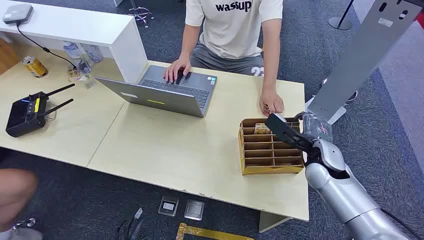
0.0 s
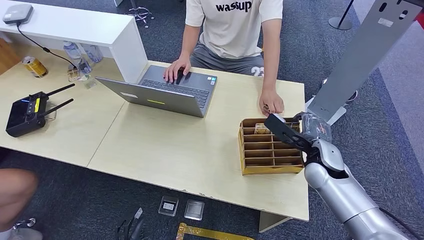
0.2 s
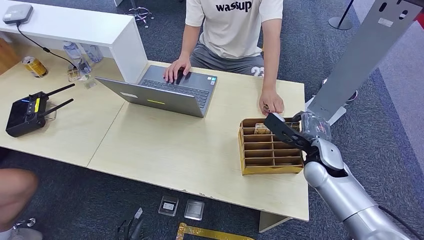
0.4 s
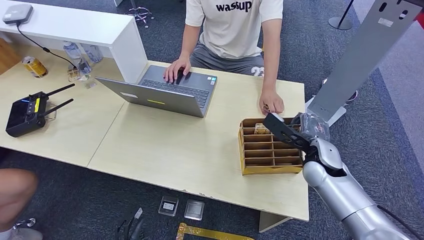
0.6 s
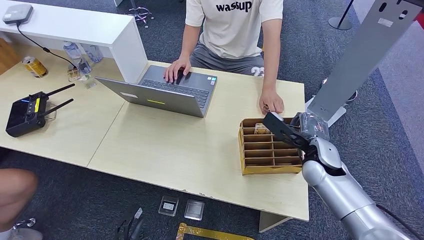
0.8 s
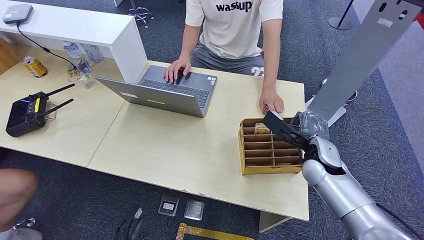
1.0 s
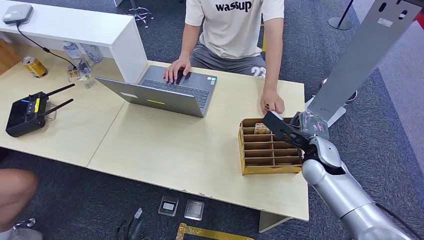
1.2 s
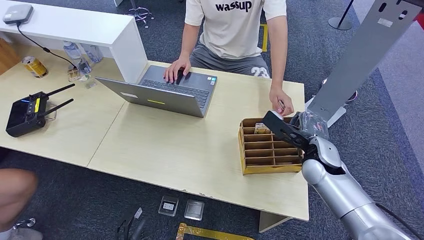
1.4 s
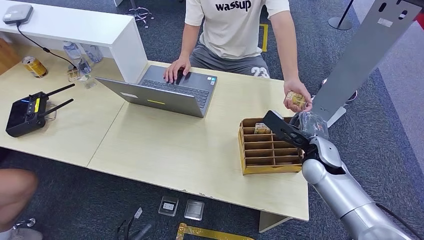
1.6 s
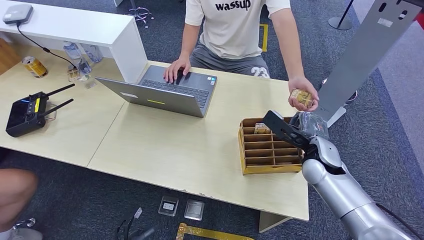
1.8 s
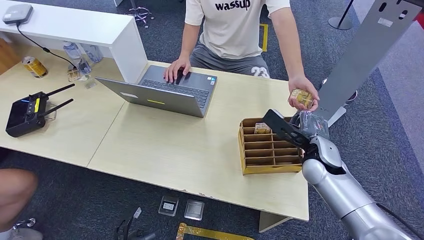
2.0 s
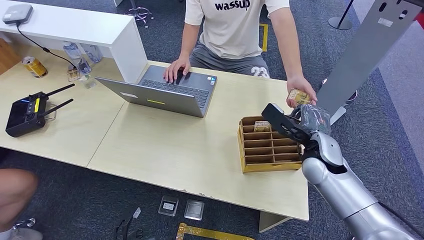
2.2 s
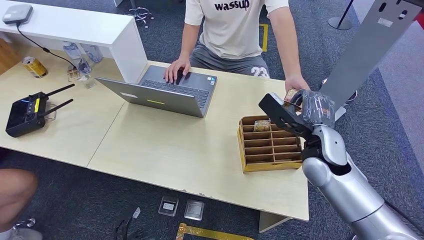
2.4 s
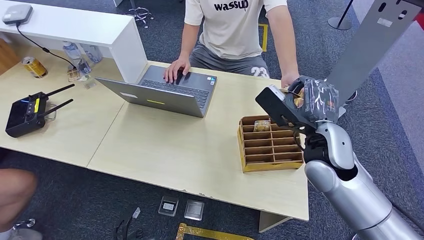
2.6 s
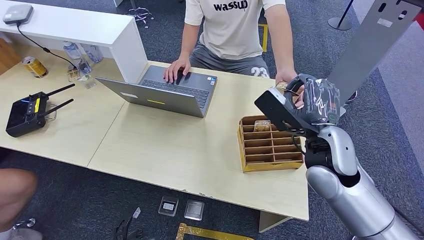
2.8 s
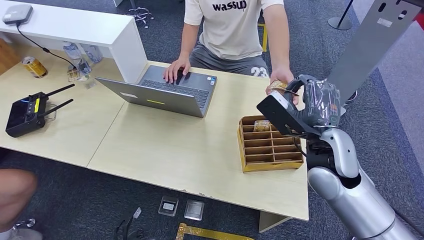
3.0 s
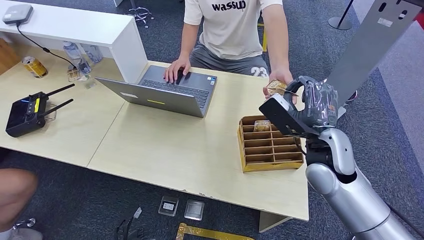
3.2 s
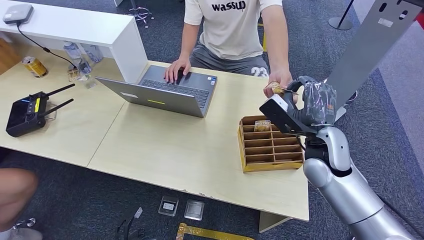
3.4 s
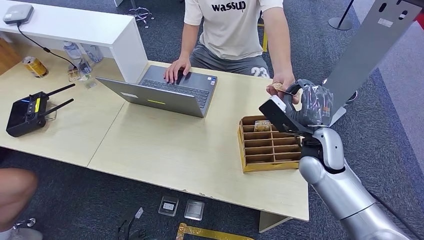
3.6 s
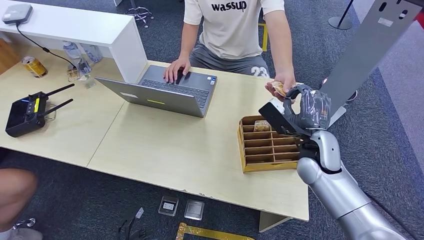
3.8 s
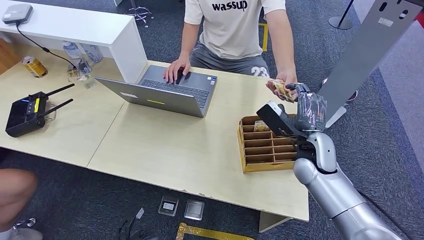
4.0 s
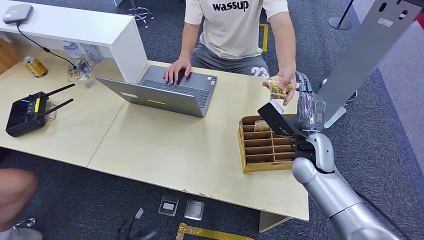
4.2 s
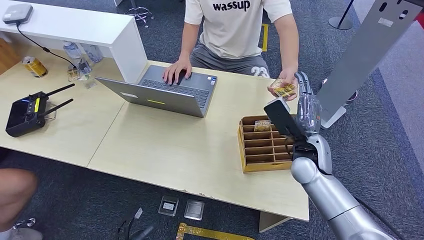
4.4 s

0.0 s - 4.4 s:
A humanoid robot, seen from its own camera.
Step, 0.0 s - 1.4 s: Pick up the key card from the card box.
Step, 1.8 s - 4.4 s: Hand the key card to the target.
1.4 s - 3.0 s: The right hand goes approximately 10 cm upward and to the left.
3.0 s - 4.4 s: The right hand is displaced downward by about 10 cm.

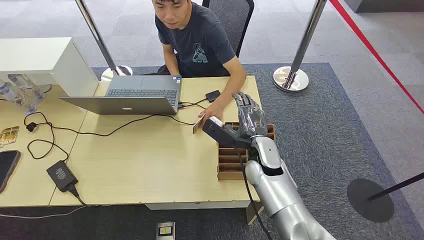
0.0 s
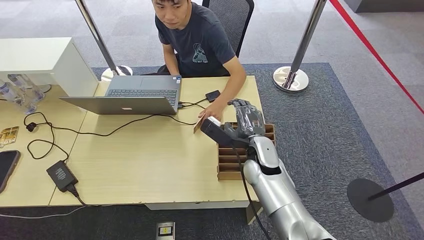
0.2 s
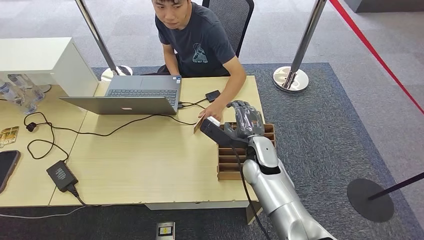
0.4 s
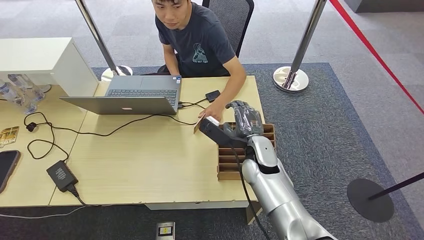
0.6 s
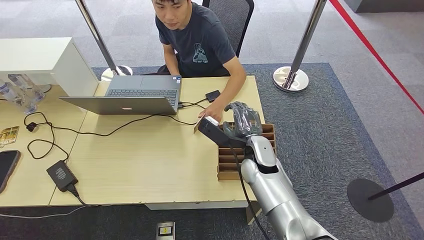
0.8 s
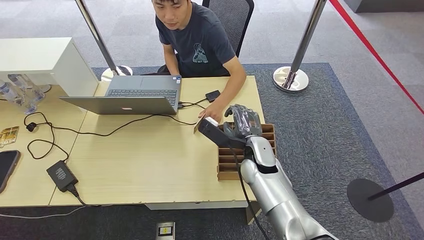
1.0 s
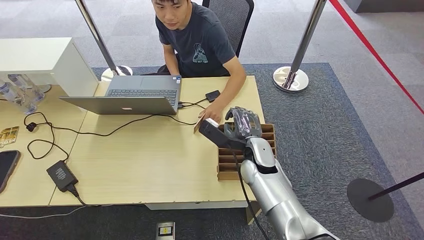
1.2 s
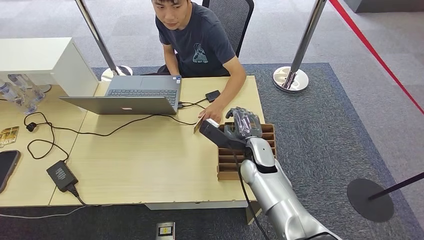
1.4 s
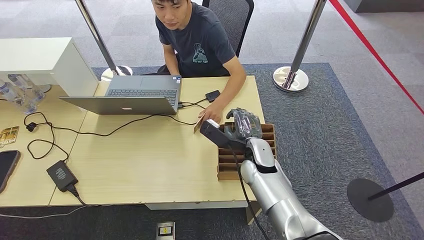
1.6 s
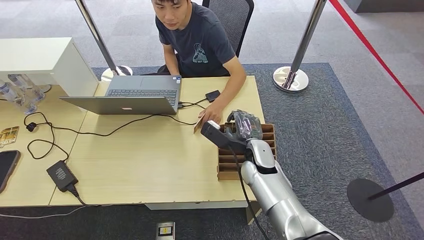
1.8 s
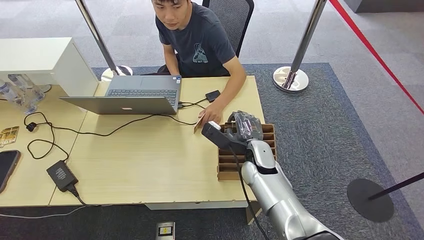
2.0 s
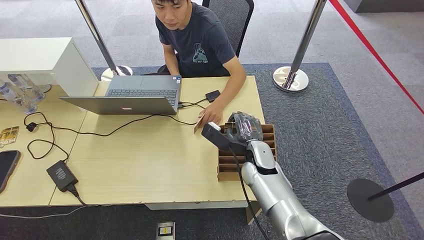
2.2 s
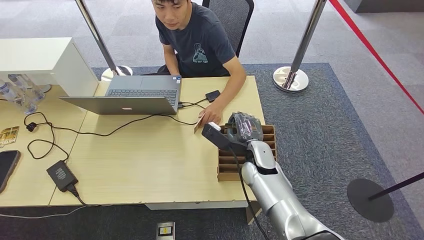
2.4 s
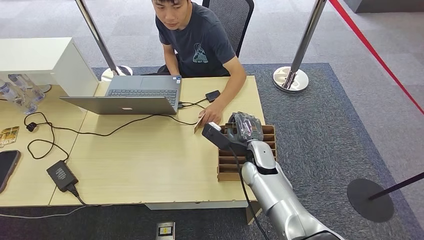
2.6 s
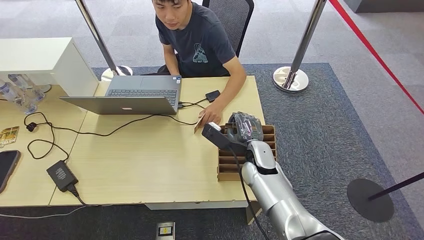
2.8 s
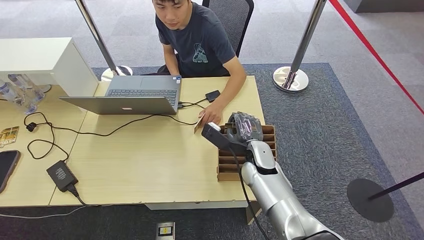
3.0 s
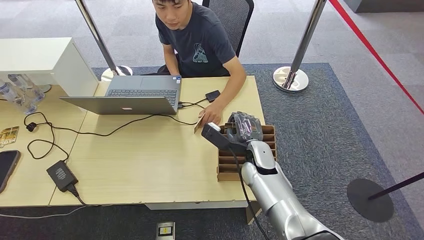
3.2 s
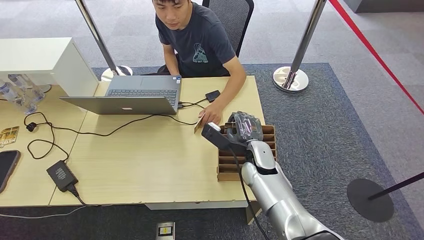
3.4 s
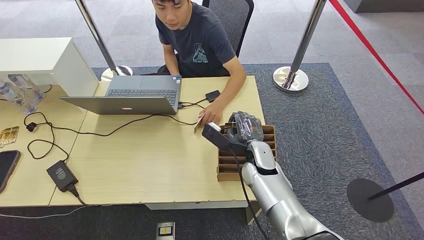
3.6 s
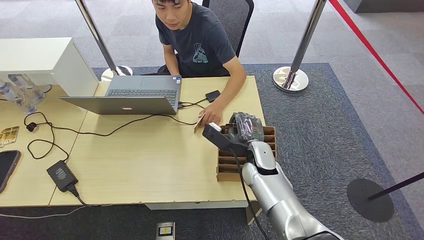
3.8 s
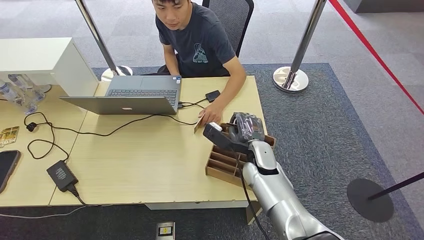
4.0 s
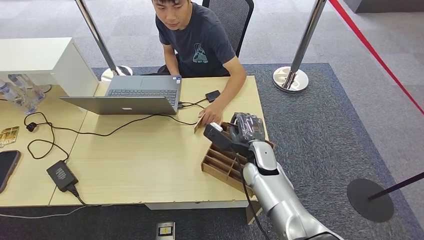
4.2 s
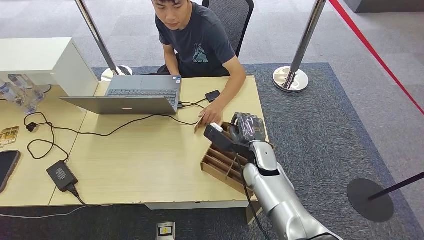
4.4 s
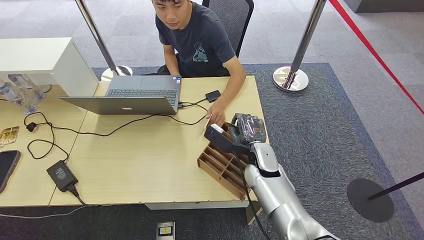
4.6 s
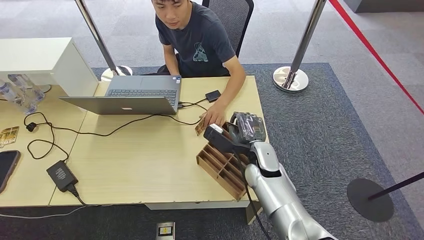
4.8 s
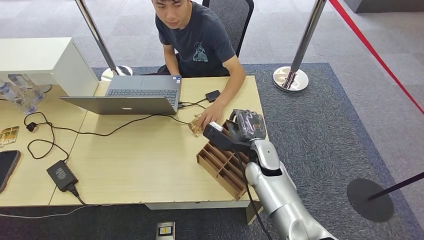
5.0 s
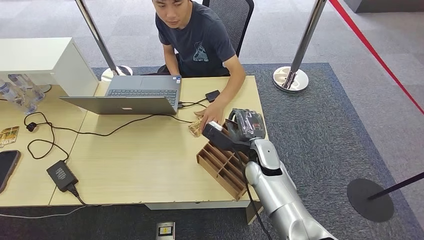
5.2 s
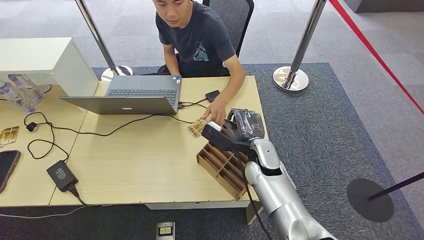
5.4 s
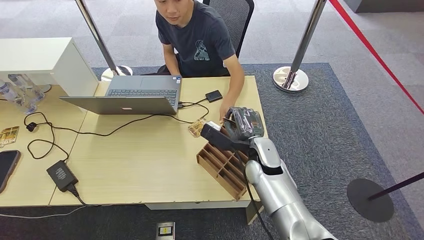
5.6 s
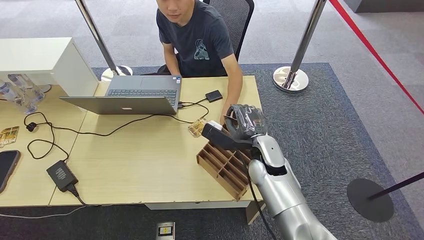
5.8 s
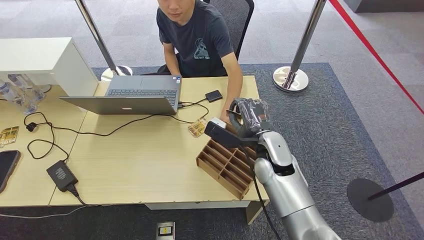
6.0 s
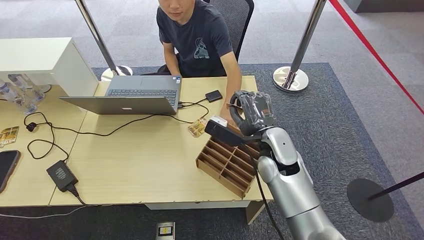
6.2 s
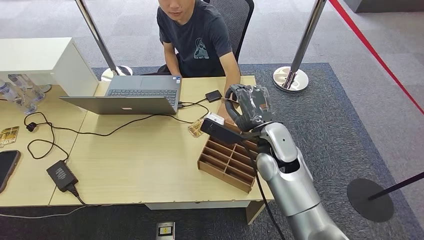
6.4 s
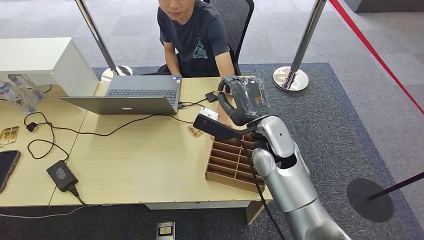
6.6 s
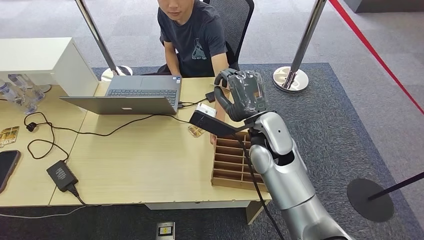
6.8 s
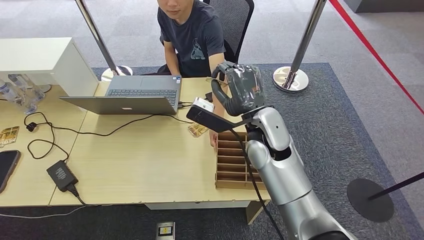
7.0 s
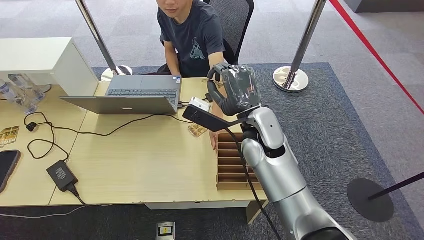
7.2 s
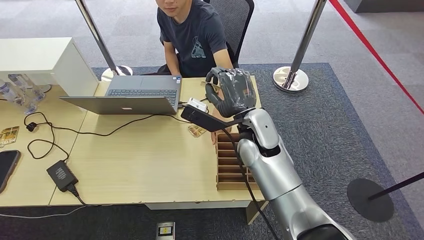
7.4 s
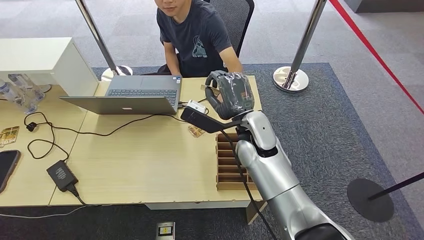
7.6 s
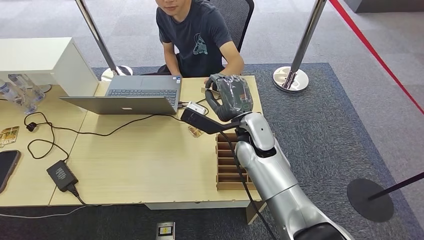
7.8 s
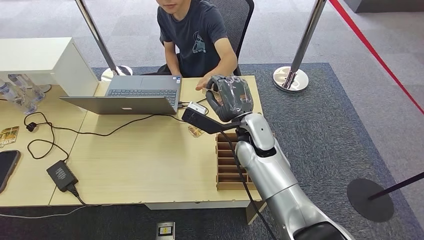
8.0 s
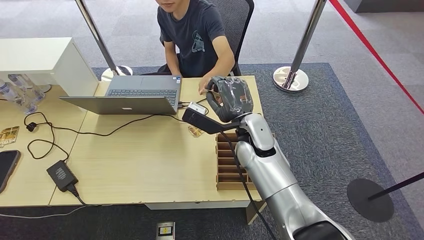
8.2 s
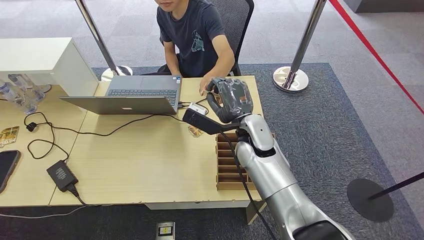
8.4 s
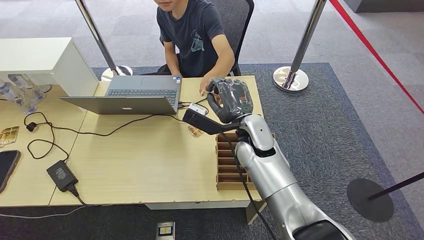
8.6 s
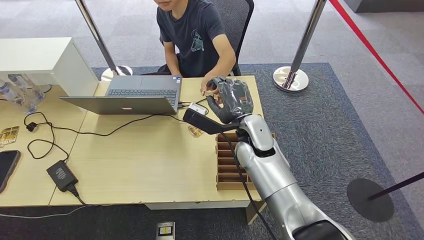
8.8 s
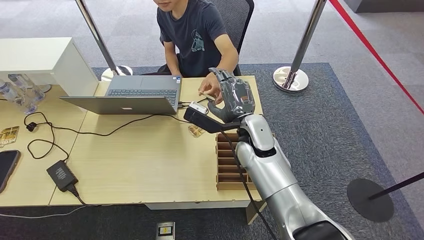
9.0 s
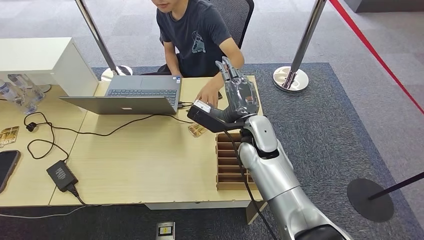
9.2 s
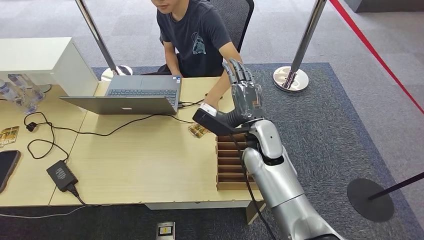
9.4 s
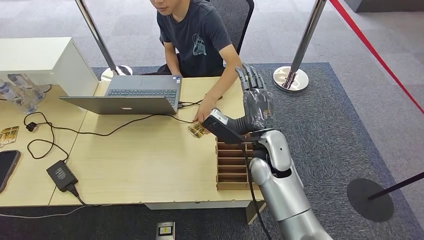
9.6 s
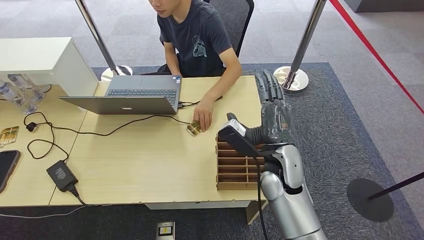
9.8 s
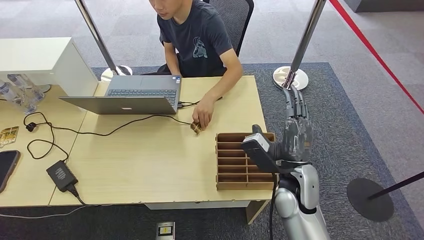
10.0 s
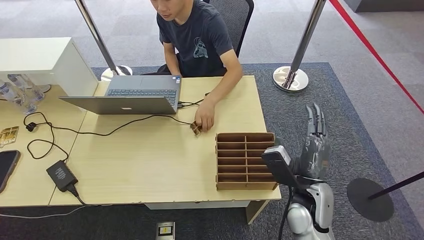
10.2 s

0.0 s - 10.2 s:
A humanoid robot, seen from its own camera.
Step, 0.0 s - 6.6 s: Pick up the key card from the card box.
Step, 6.8 s - 10.2 s: Hand the key card to the target.
1.4 s - 3.0 s: The hands stay close to where they were, moving slightly.
3.0 s - 4.4 s: The two hands keep their place.
4.4 s - 5.8 s: The hands move only a little.
5.8 s - 7.2 s: The right hand heads upward, covering about 10 cm.
7.2 s - 8.8 s: The hands stay close to where they were, moving slightly.
8.8 s - 10.2 s: The right hand is displaced backward, to the right and downward by approximately 15 cm.
